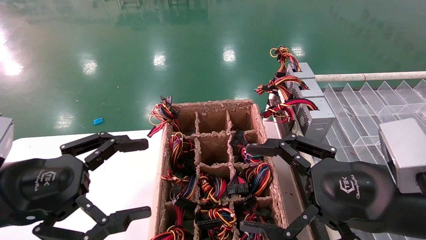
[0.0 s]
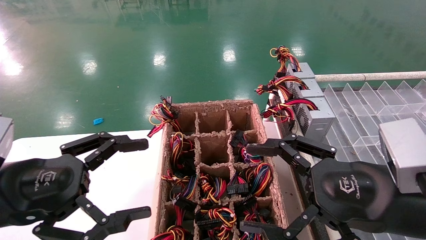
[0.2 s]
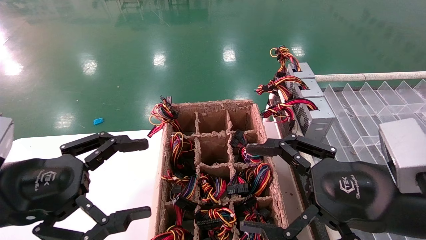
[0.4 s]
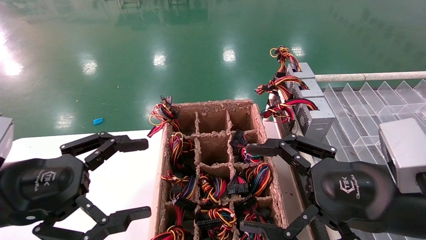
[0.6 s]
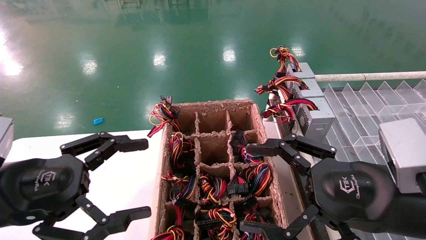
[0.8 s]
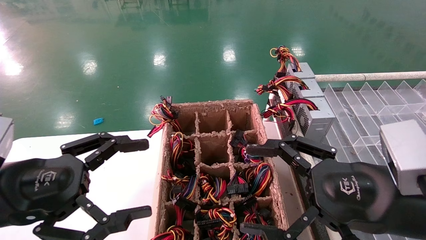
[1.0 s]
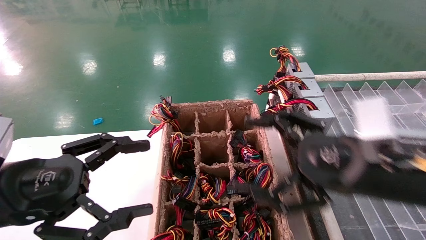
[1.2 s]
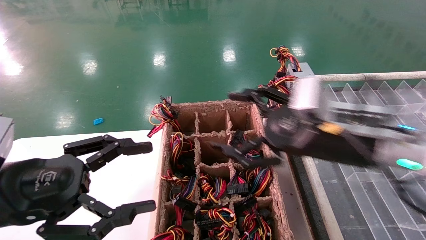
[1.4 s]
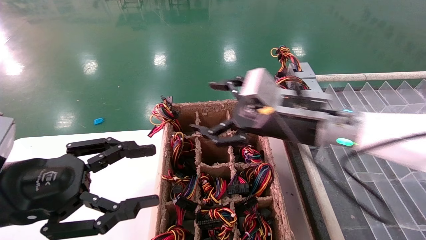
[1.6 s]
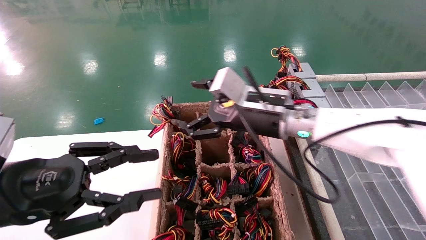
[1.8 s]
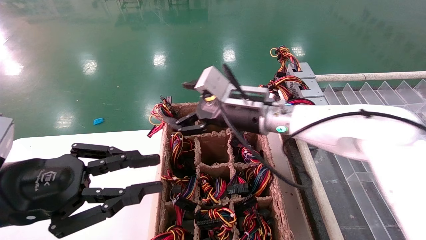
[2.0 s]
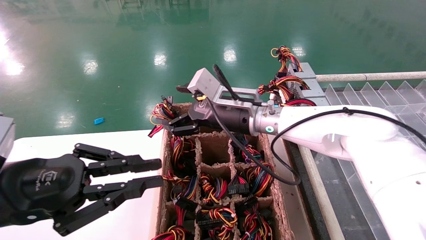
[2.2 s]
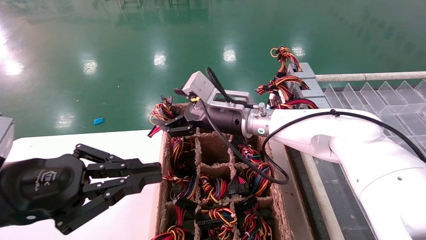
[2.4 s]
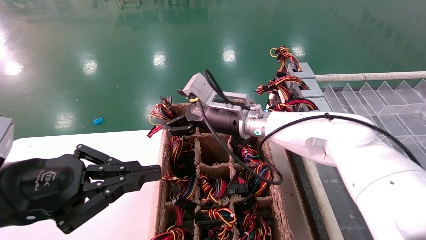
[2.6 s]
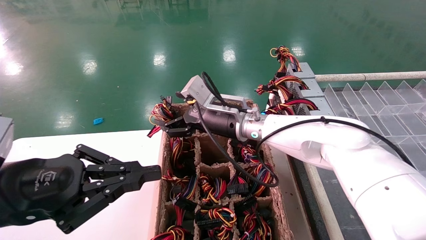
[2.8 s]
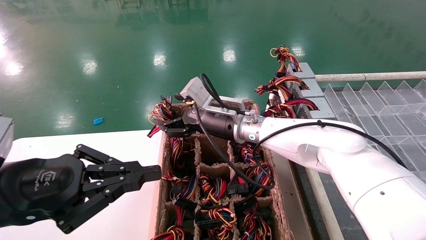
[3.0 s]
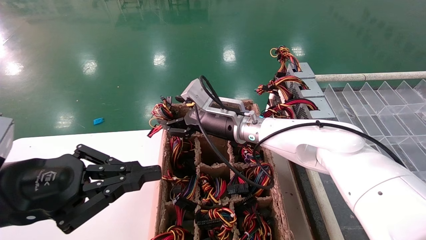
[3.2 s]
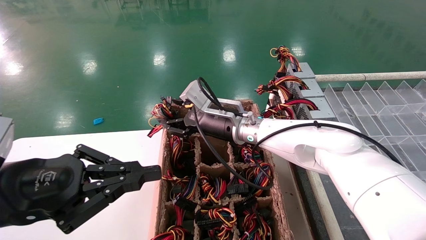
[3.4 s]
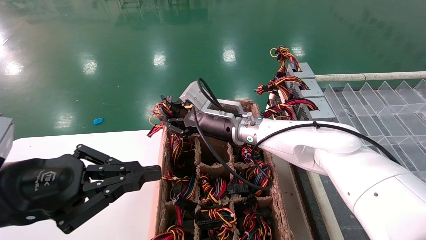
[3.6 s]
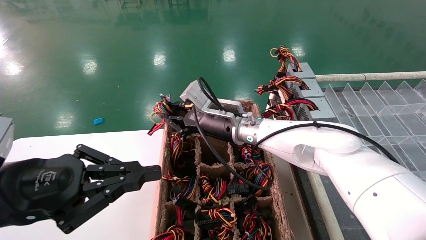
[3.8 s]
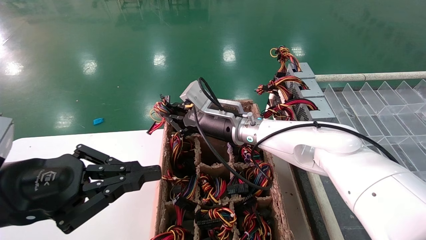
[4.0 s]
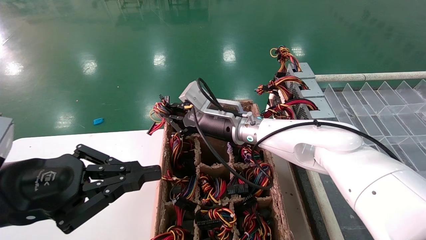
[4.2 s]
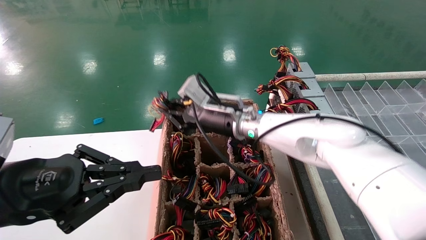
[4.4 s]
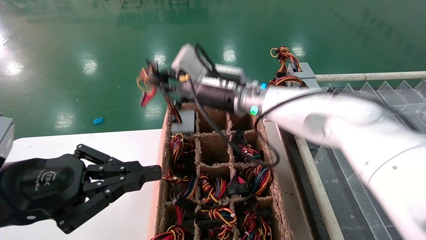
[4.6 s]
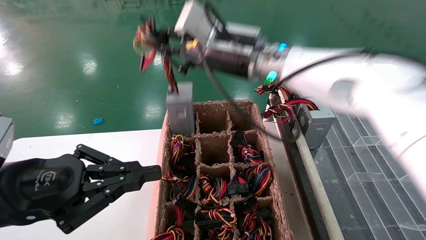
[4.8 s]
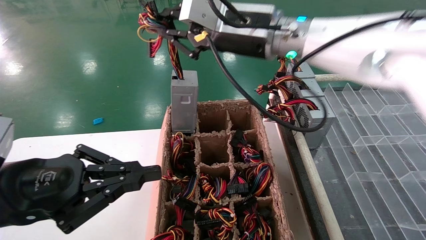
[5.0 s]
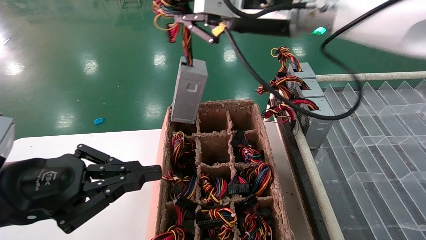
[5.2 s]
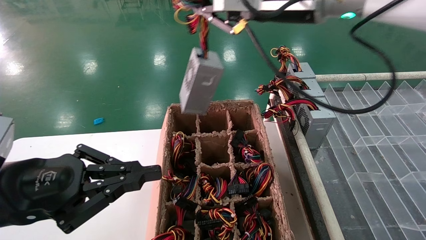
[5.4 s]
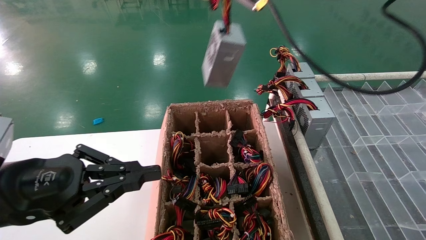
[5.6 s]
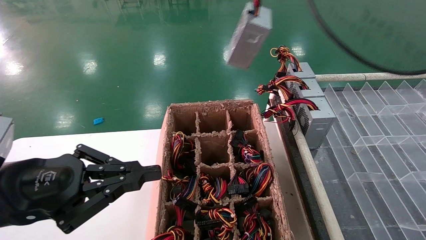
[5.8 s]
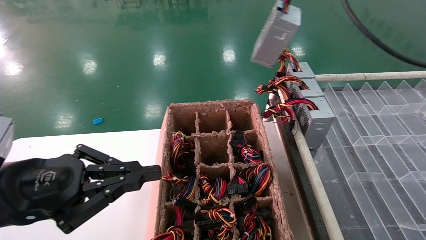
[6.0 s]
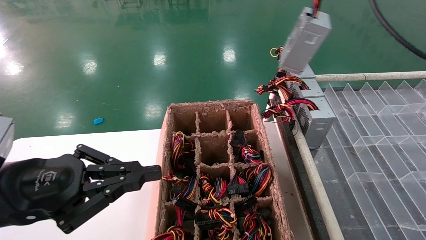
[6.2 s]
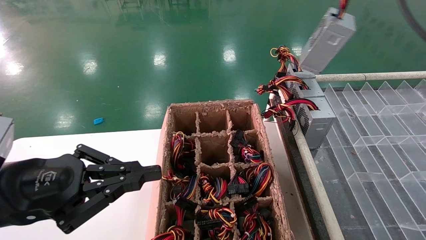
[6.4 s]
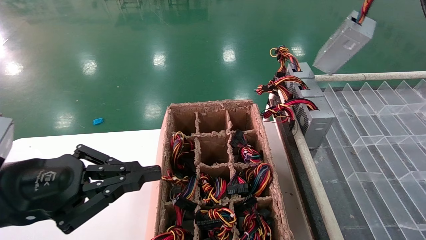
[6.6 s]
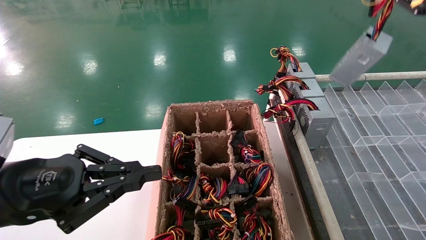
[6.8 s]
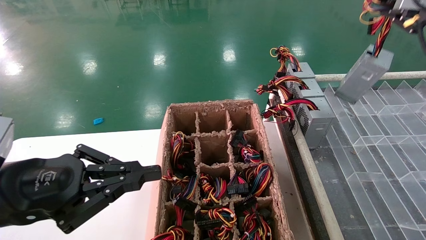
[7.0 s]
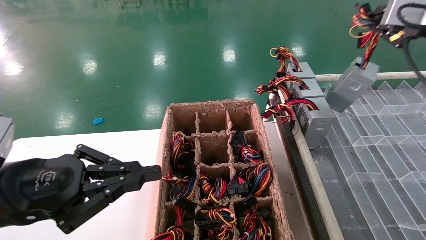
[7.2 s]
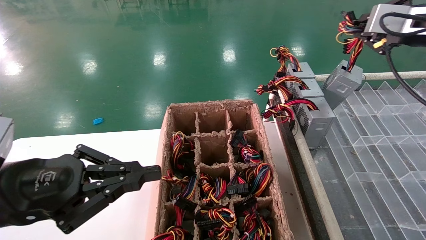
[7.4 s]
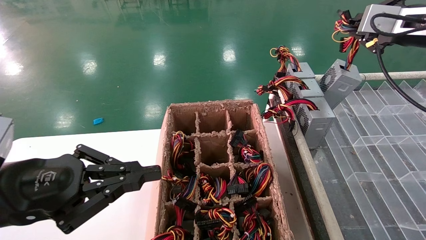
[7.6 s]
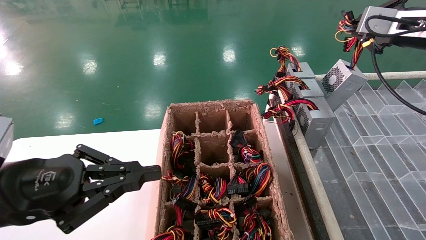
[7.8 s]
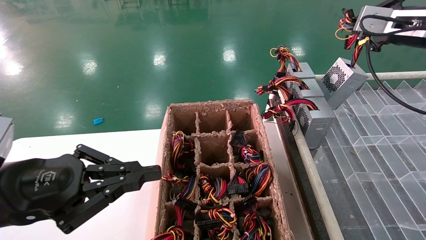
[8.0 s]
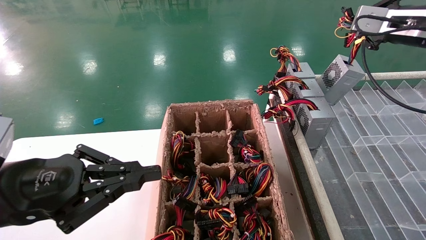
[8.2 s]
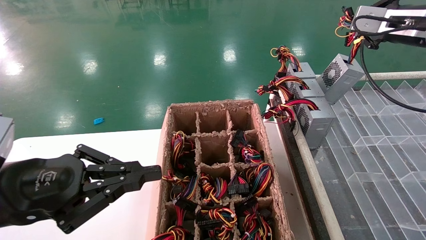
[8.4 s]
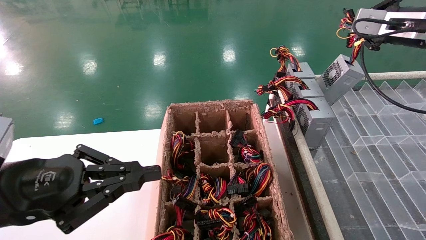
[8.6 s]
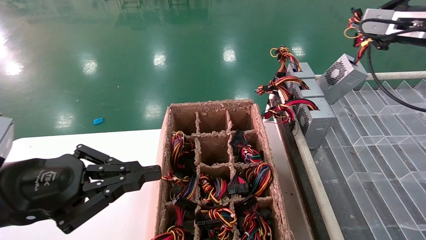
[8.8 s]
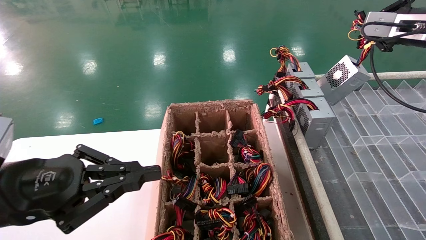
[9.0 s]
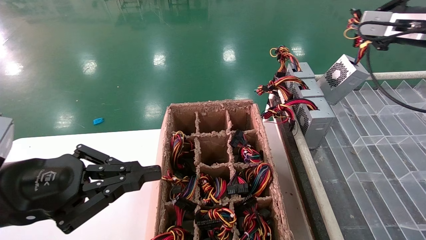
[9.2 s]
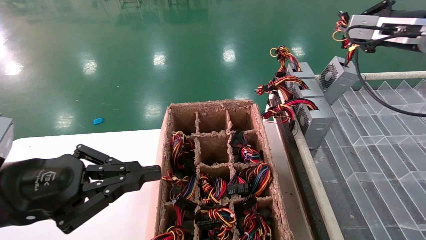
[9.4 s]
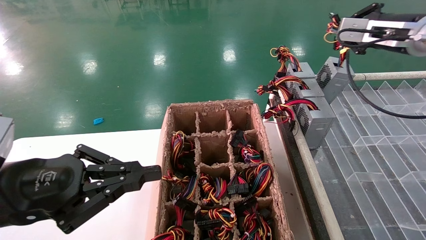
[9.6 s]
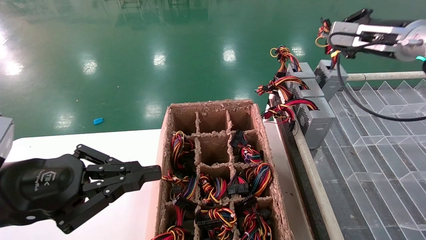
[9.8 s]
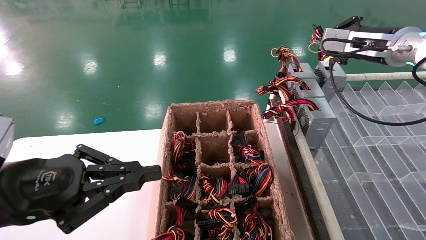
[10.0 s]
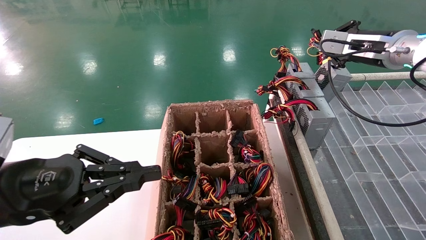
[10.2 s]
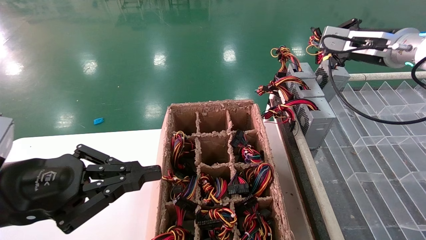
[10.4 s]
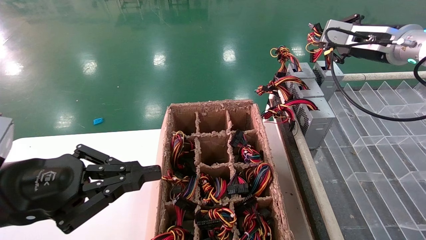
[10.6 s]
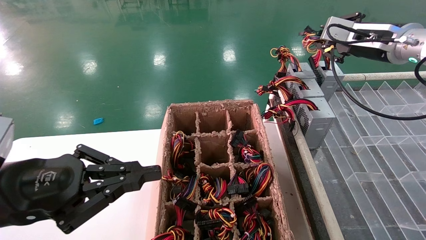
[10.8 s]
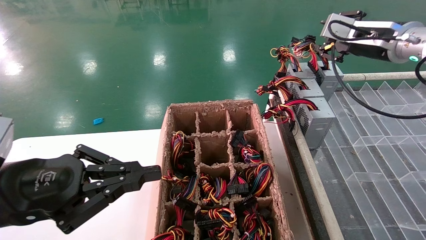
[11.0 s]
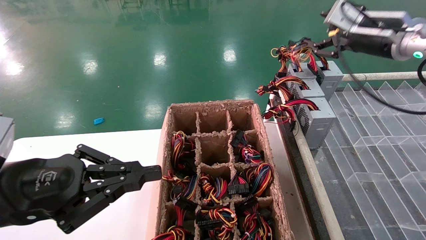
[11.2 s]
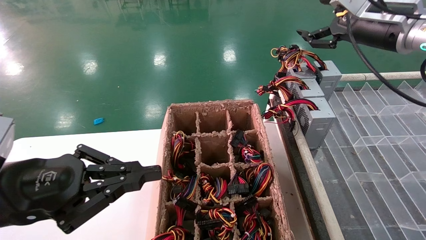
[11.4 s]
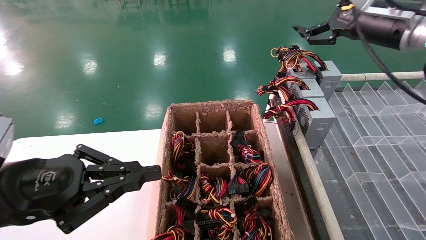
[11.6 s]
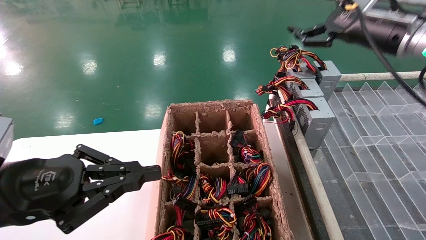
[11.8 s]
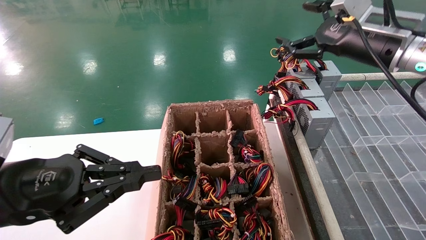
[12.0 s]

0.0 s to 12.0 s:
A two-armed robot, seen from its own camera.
Step, 1.4 to 4.2 s: Grab the main unit power supply from the containment box.
Step, 4.4 to 11.2 s: Place the main unit power supply in the designated area.
0.0 to 1.6 s: The right gripper is displaced forward and to the left by roughly 15 cm.
1.6 to 3.0 s: The left gripper closes; the right gripper goes approximately 15 cm to the left and forward.
3.0 to 4.4 s: The right gripper closes up.
4.4 to 6.0 s: The right gripper travels upward, to the right and backward by some 35 cm.
6.0 to 7.6 s: The right gripper is displaced to the right and downward by some 15 cm.
7.6 to 9.0 s: The grippers stay close to where they were, moving slightly.
9.0 to 10.4 s: The right gripper travels to the left by about 5 cm.
10.4 to 12.0 s: The right gripper shifts roughly 5 cm backward, and opens.

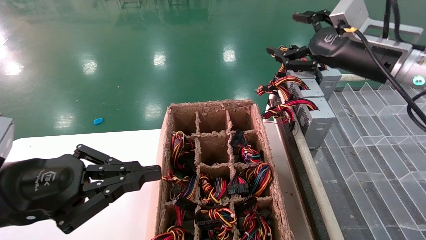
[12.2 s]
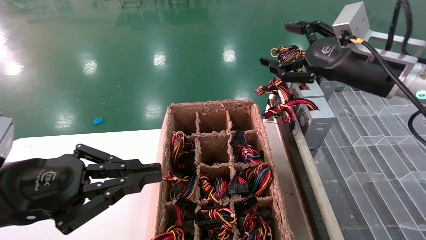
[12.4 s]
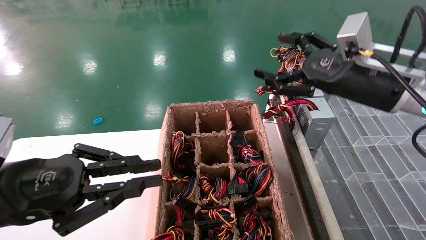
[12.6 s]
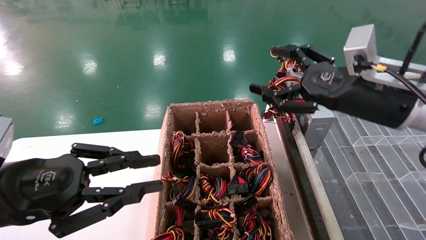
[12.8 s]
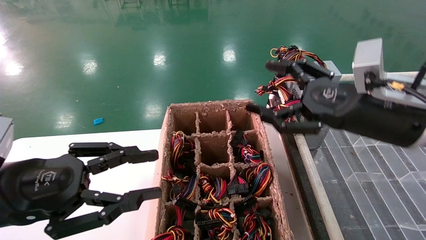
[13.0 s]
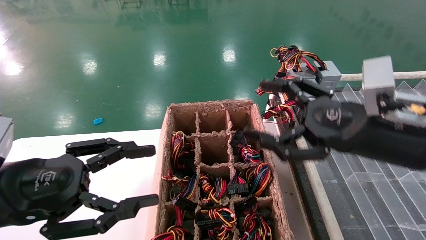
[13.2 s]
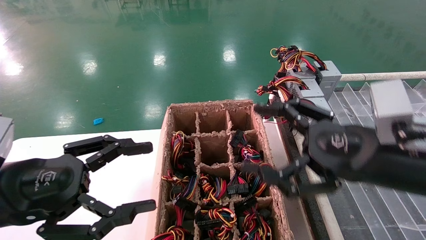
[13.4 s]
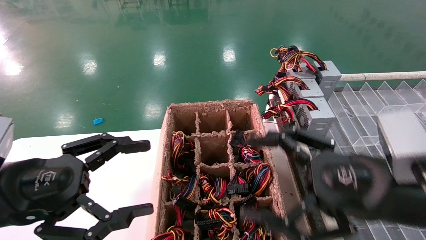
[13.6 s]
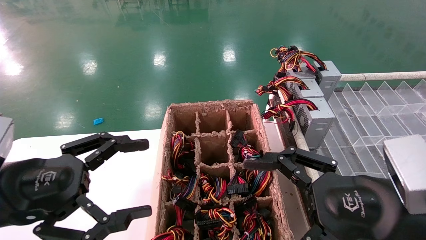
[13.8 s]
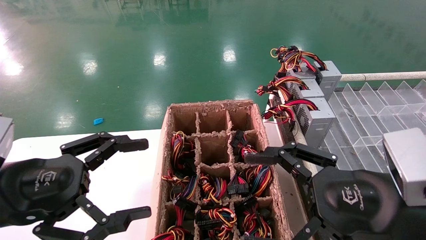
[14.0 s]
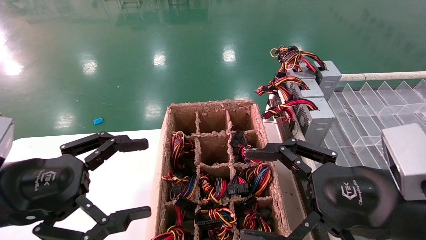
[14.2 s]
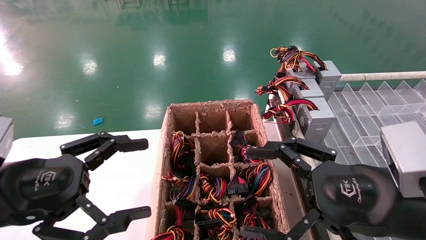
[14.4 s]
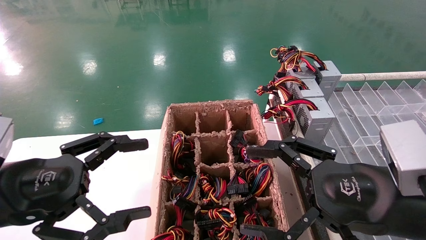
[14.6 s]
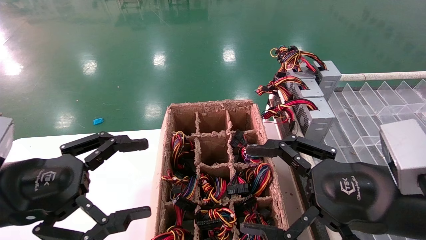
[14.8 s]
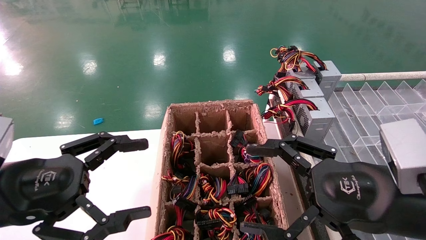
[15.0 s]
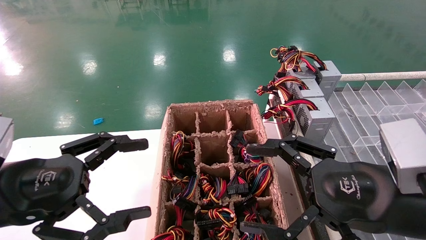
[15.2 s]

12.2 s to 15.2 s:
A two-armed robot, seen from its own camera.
12.2 to 13.8 s: The right gripper moves backward and downward, some 25 cm, while the left gripper opens.
13.8 to 15.2 s: The two grippers keep their place.
